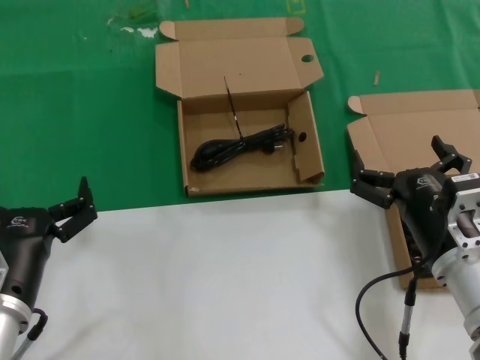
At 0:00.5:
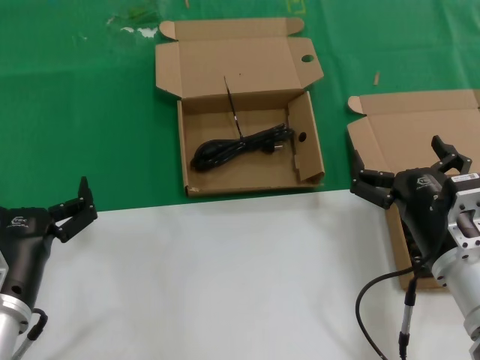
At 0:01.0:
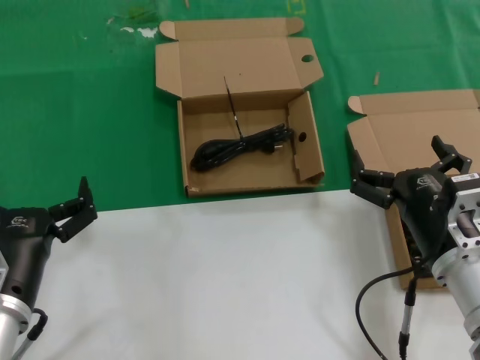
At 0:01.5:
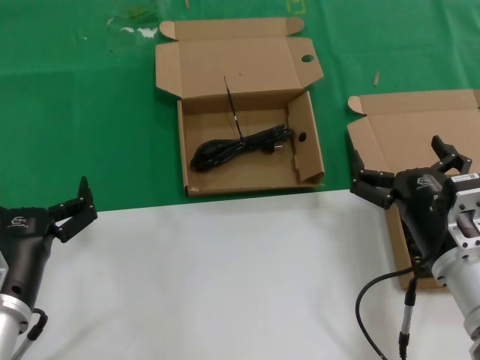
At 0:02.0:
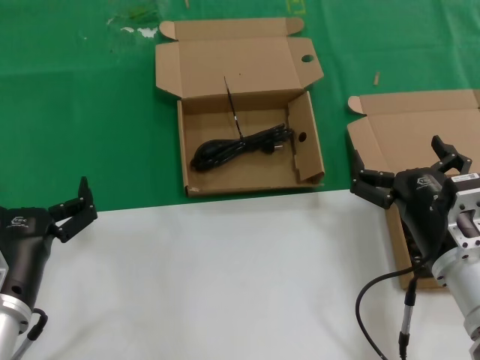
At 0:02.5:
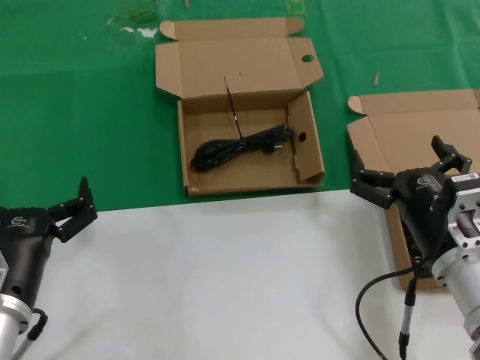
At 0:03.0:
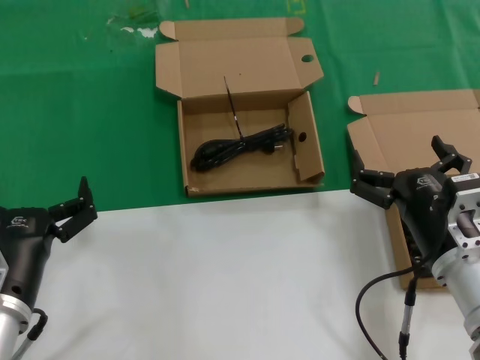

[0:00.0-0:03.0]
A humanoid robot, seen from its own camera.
Task of the whole recording: take the parts from the box containing them and put them into an empty box.
0:00.0 to 0:03.0: Both hands stay about where they are.
